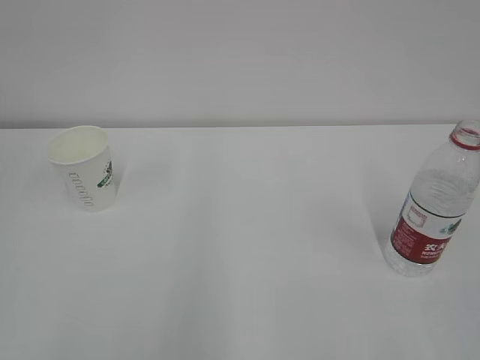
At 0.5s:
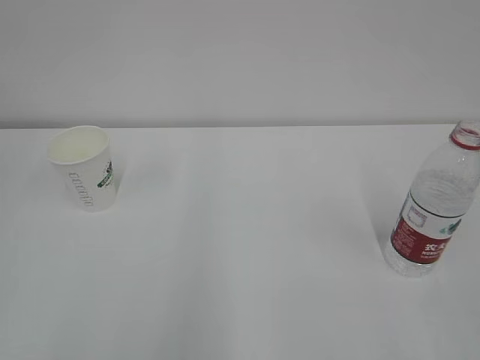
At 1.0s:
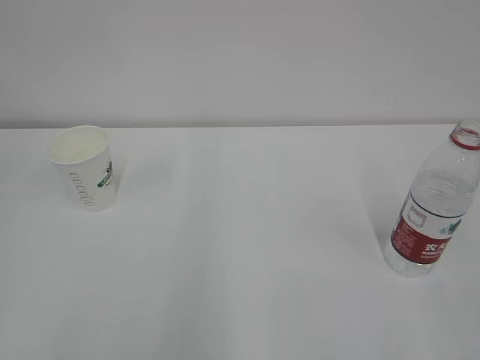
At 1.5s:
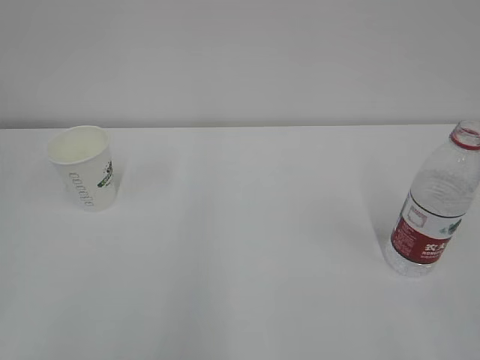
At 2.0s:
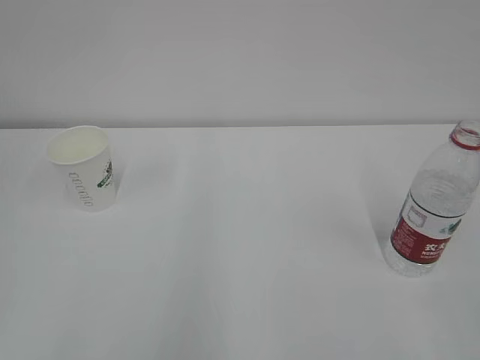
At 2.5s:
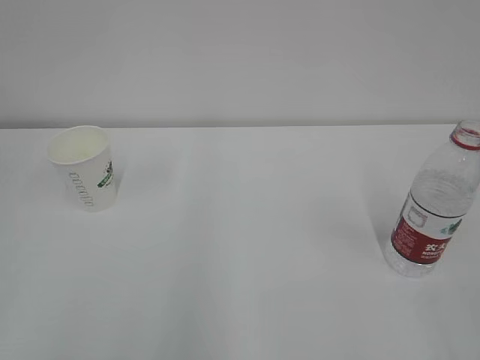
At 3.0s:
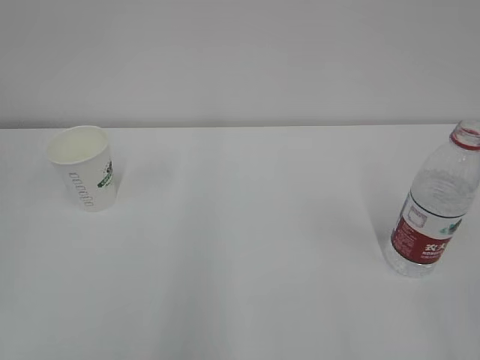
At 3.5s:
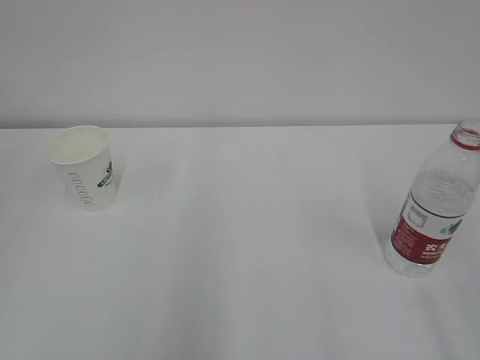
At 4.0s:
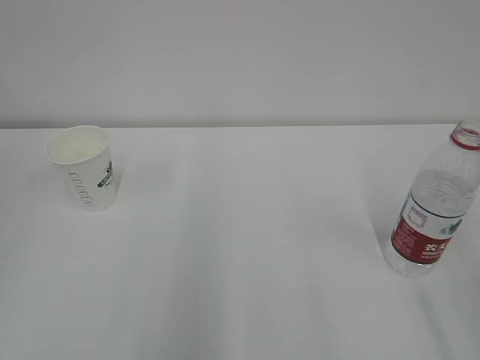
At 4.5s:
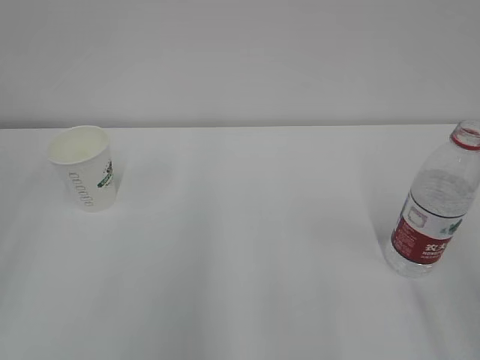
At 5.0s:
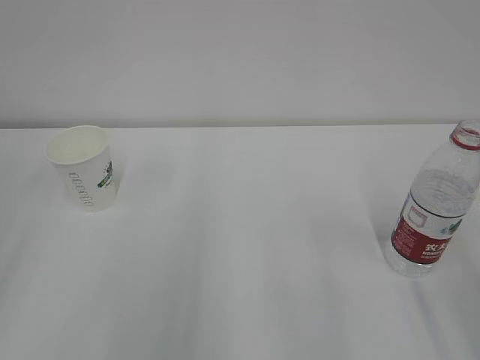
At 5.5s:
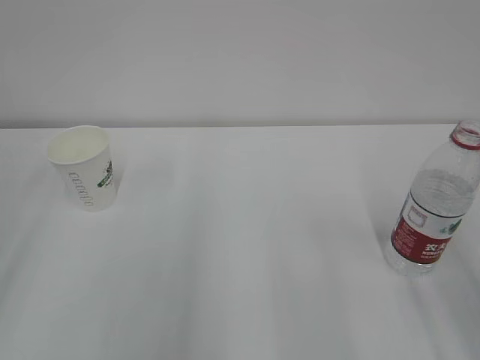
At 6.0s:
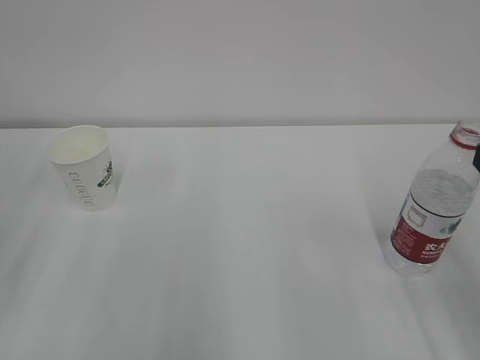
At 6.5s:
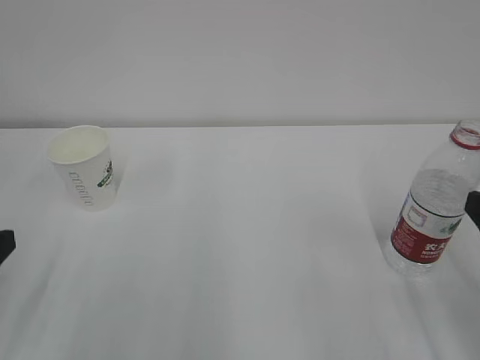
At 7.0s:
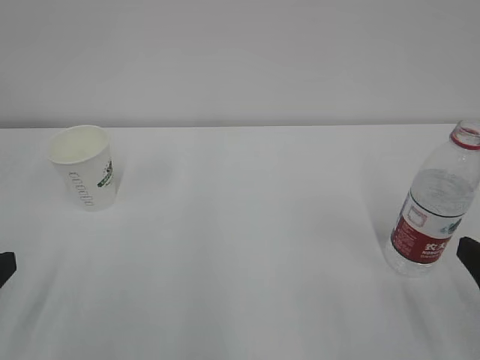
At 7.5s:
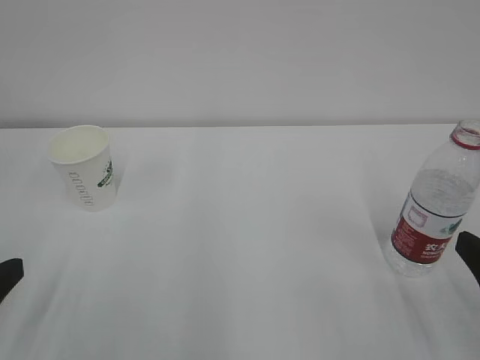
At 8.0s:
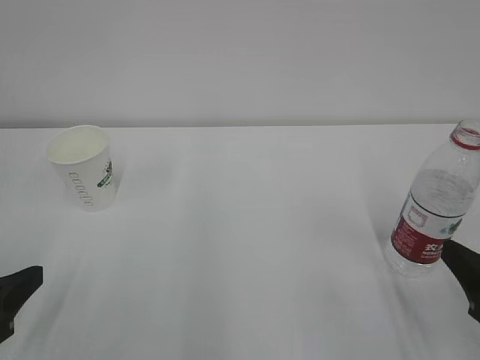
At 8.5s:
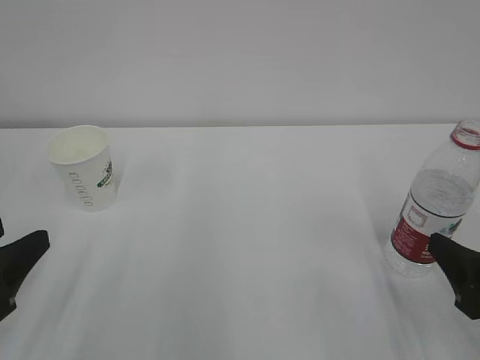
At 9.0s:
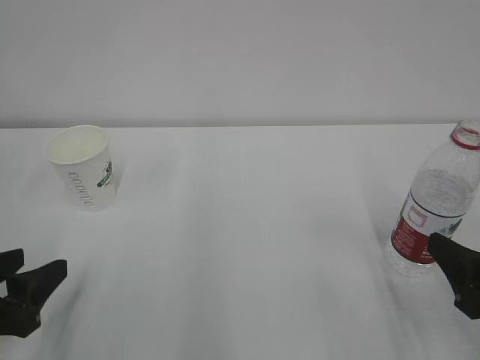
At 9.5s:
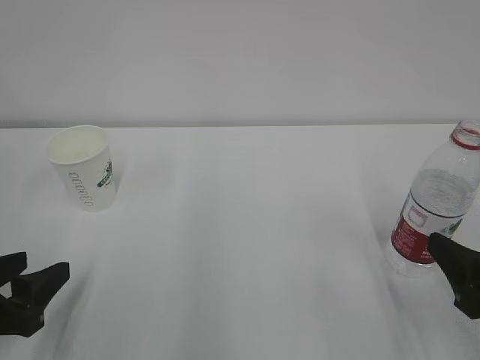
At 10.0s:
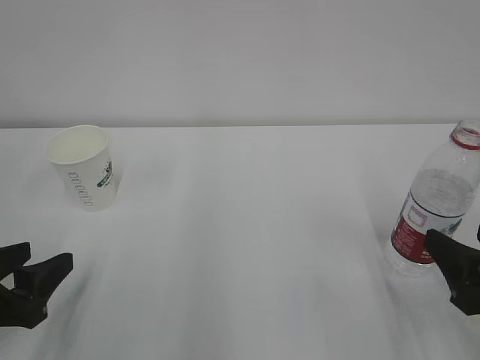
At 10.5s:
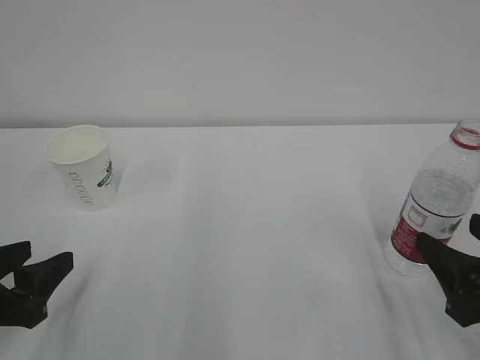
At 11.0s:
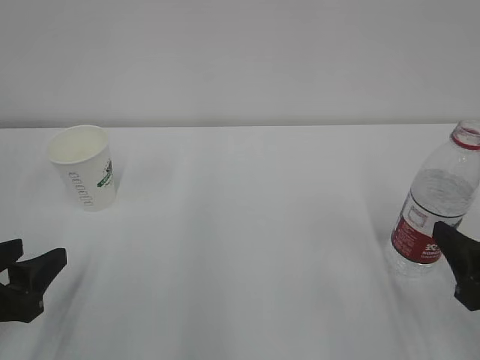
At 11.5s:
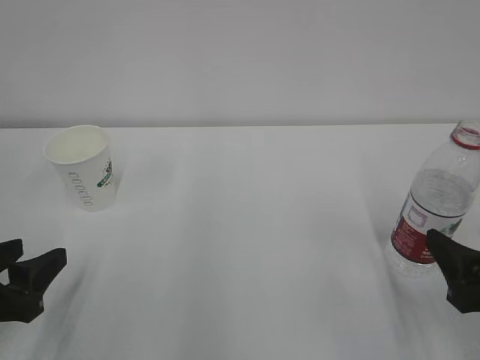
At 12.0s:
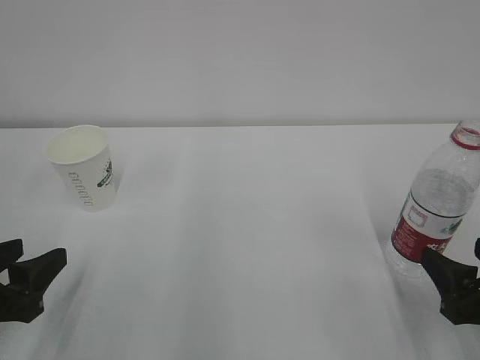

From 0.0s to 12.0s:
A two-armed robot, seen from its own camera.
From 6.0s to 8.0s: Both grippers travel together downward, about 10 cm.
From 8.0s to 12.0s: The grippers make only small movements.

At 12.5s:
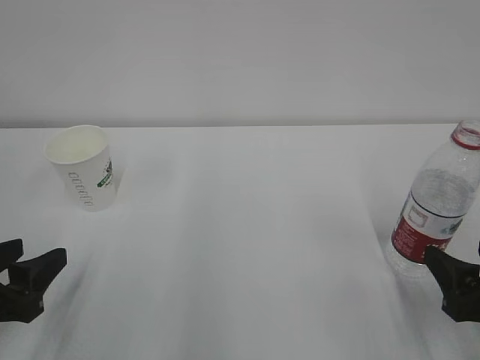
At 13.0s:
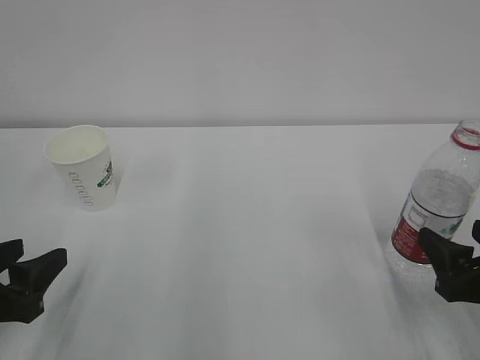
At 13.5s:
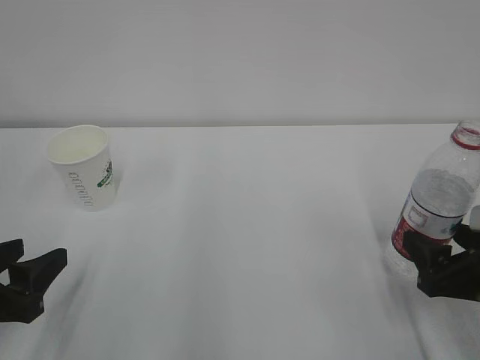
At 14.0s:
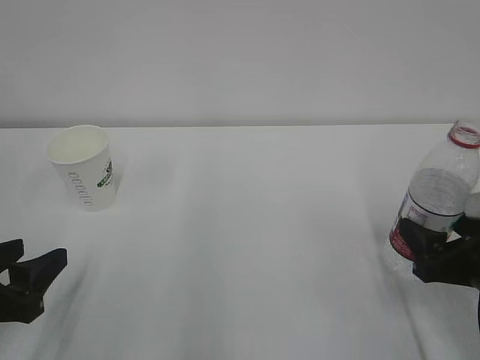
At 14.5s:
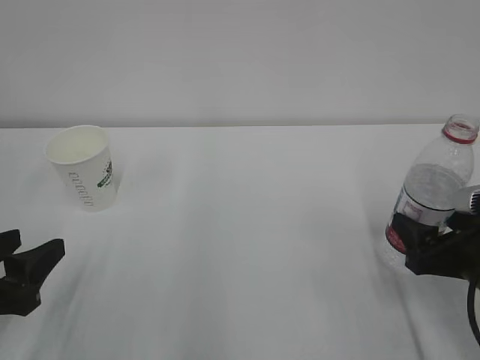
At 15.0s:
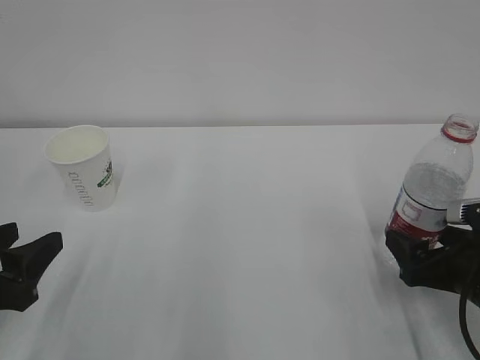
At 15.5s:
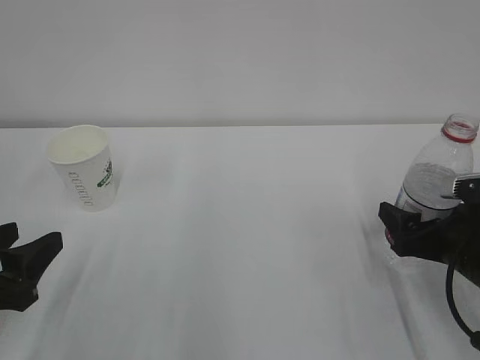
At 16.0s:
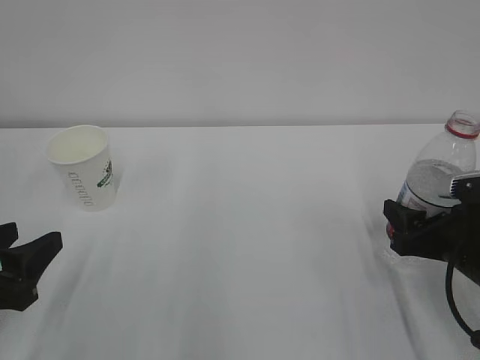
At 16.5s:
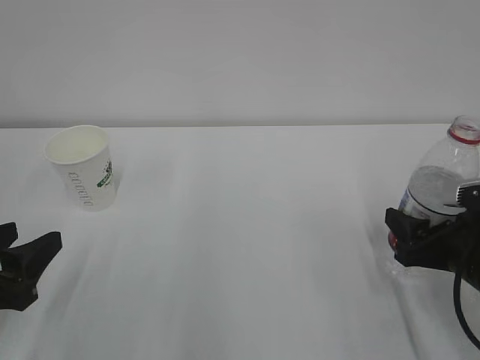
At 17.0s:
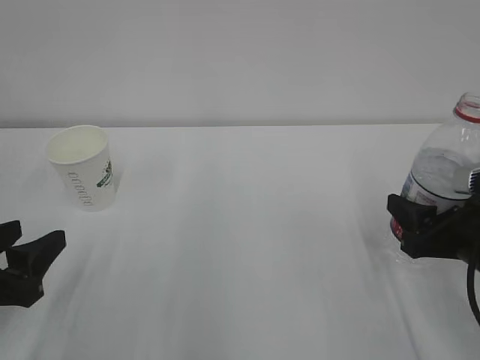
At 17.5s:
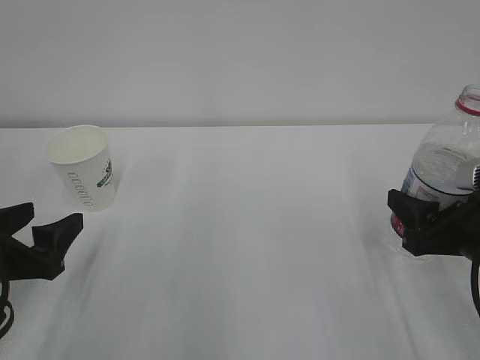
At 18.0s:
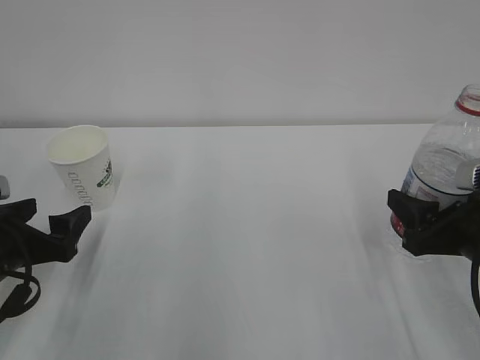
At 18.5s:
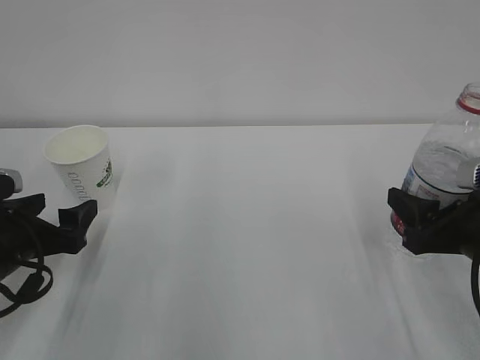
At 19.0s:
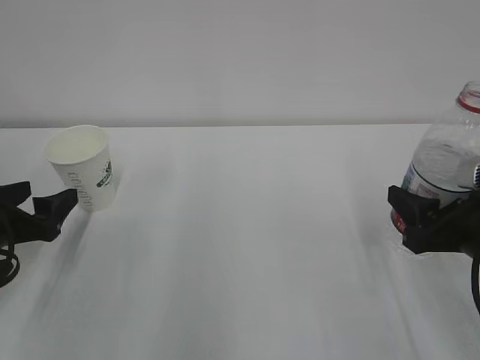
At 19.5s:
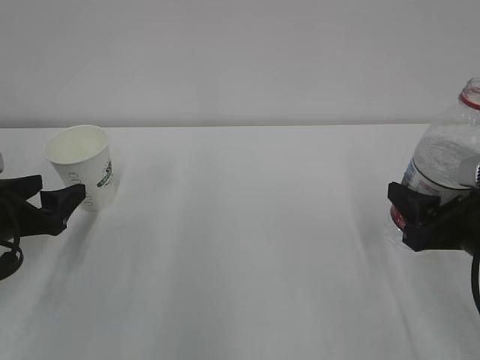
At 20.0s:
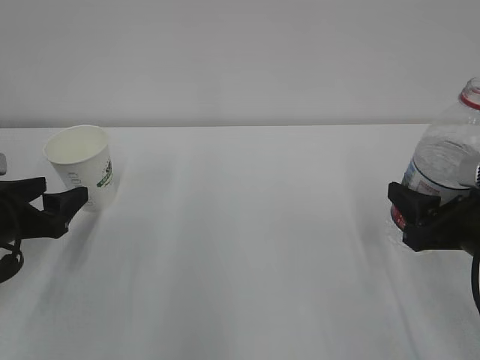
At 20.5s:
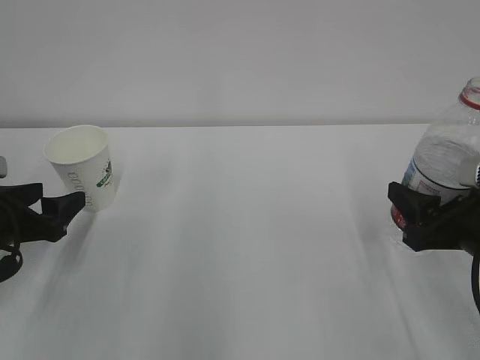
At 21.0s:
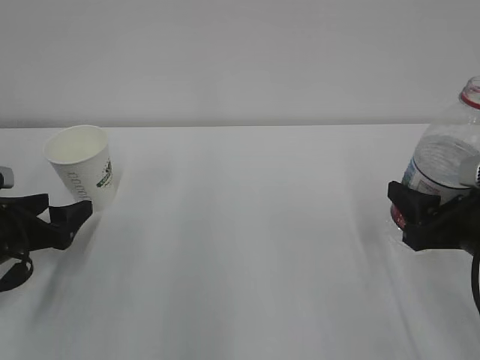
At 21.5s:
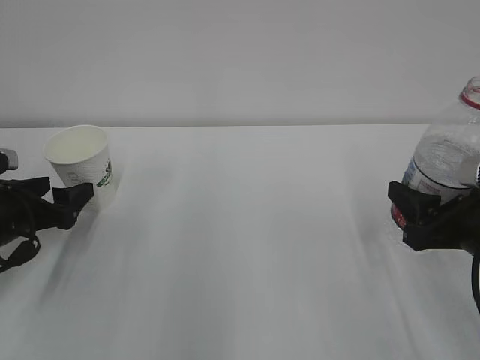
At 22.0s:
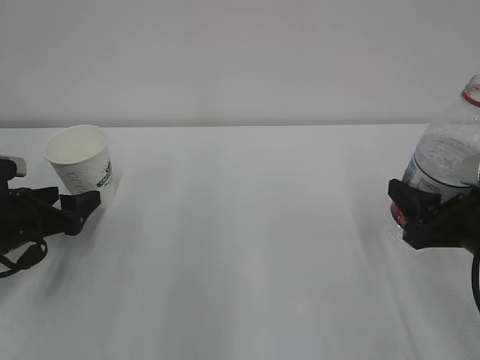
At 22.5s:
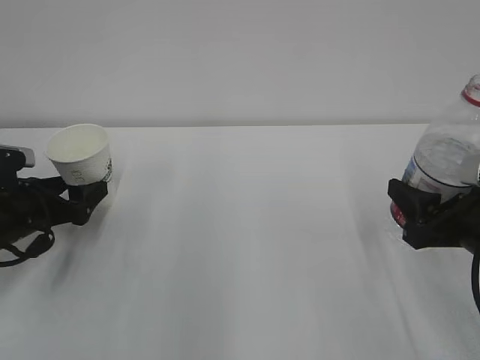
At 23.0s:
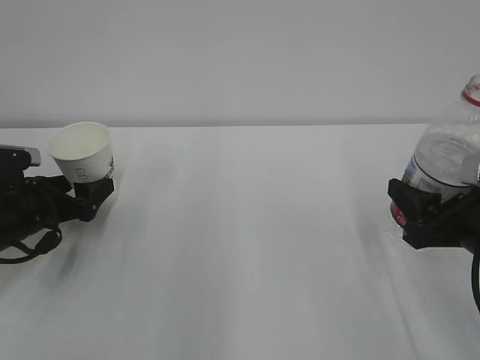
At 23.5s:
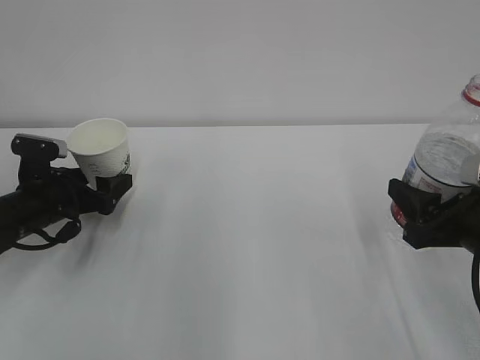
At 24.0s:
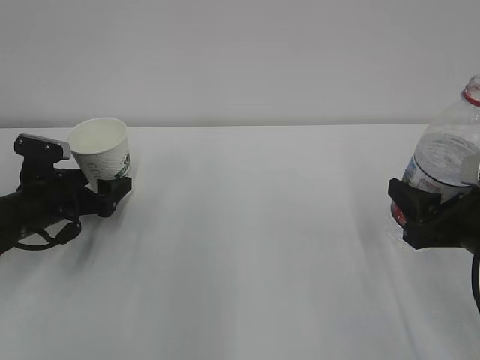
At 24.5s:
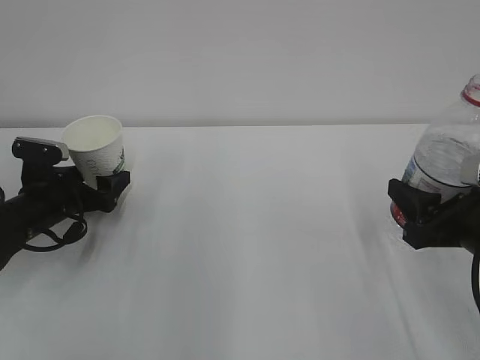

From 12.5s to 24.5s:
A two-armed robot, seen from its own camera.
From 12.5s to 14.5s: The right gripper is displaced forward by some 5 cm.
From 14.5s to 16.5s: The right gripper closes.
From 16.5s to 18.5s: The left gripper is displaced forward by roughly 10 cm, and opens its fingers.
From 18.5s to 20.5s: The grippers make only small movements.
From 20.5s to 22.5s: The left gripper changes place by approximately 5 cm.
From 22.5s to 24.5s: The left gripper ends up approximately 5 cm from where it was.

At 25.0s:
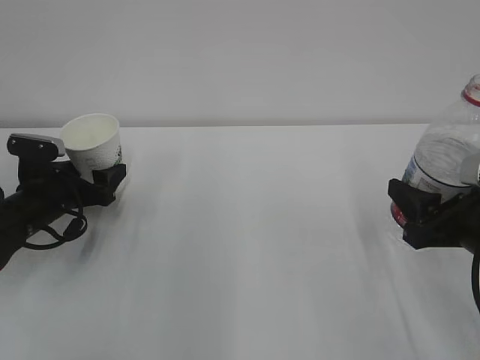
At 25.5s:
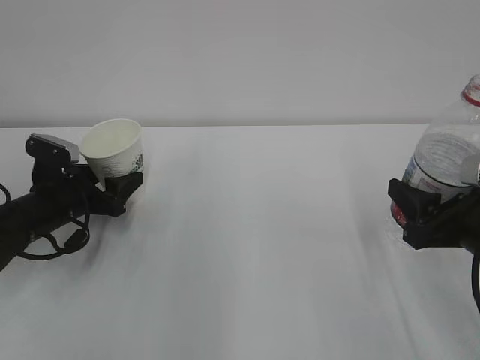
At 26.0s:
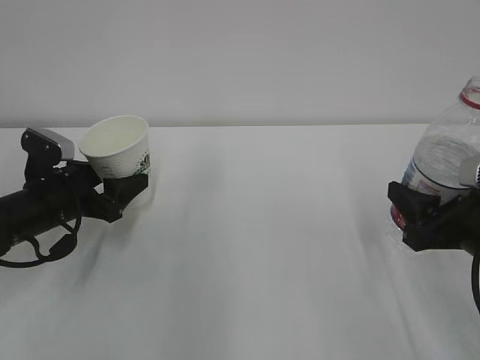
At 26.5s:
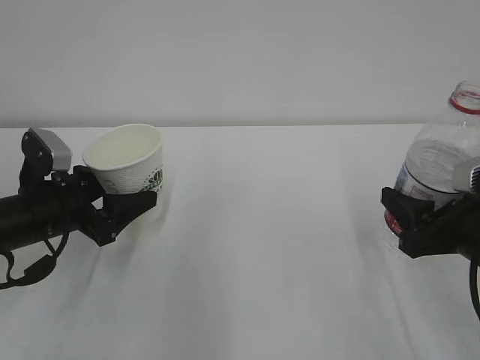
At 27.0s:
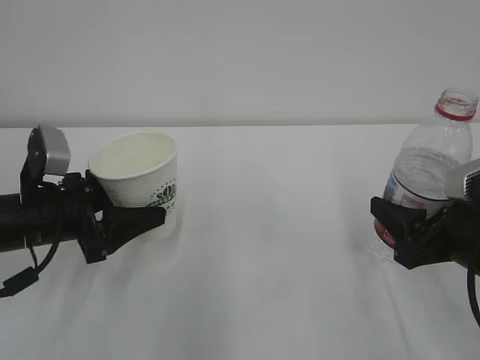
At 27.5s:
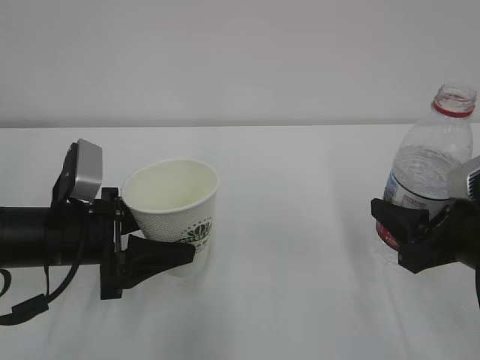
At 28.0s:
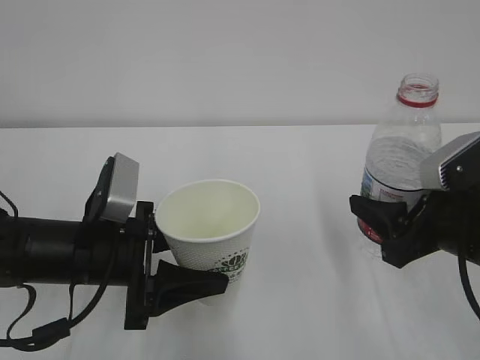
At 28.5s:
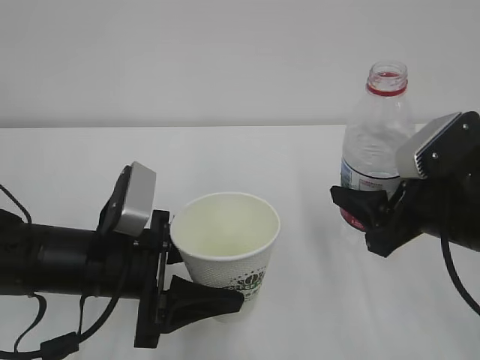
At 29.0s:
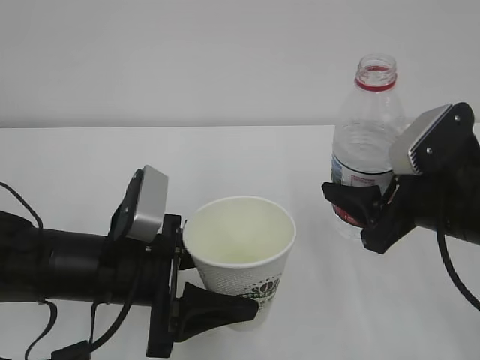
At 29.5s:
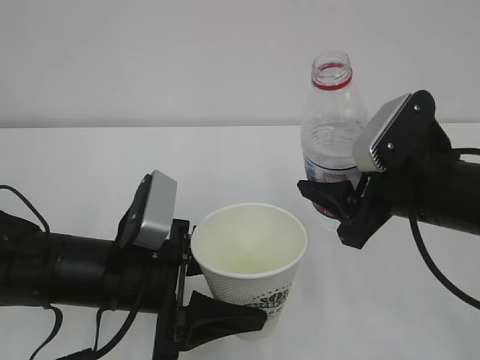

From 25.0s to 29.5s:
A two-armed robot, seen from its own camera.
From 25.0s to 27.0s: The left gripper shifts approximately 10 cm backward and upward, and closes up.
From 27.0s to 29.5s: The left gripper is displaced to the right and backward by some 15 cm. Meanwhile the right gripper goes approximately 10 cm to the left and upward.
